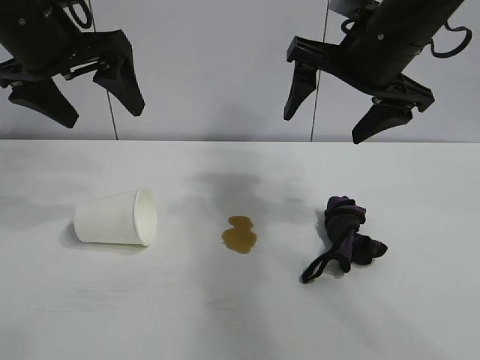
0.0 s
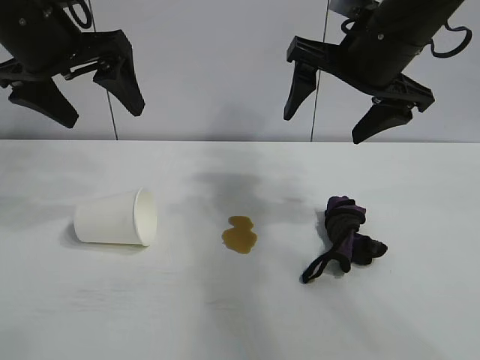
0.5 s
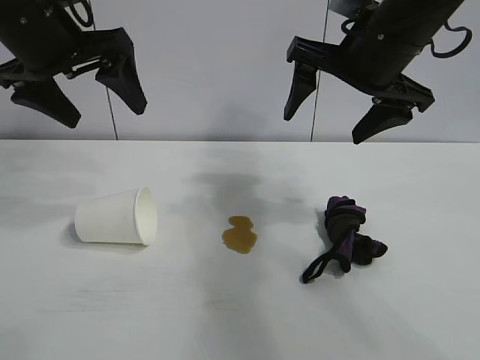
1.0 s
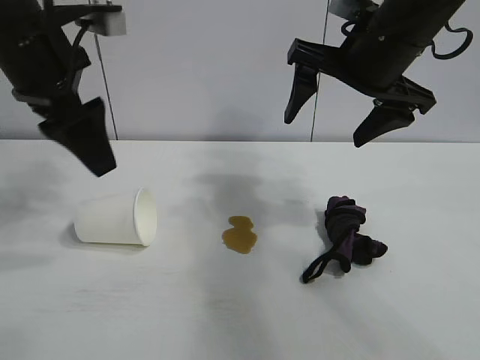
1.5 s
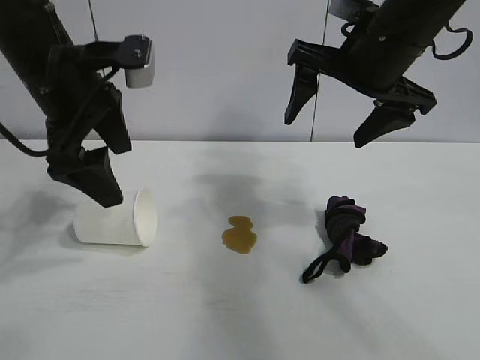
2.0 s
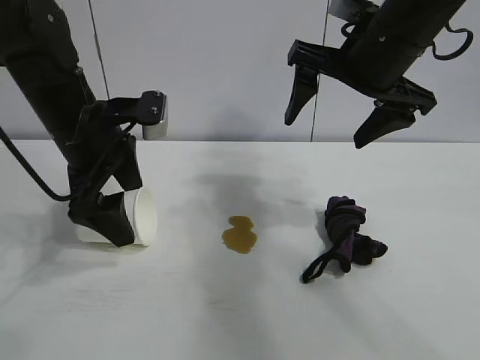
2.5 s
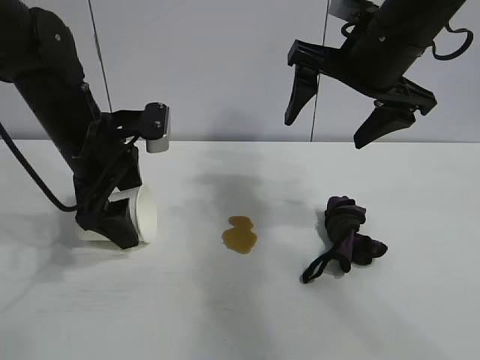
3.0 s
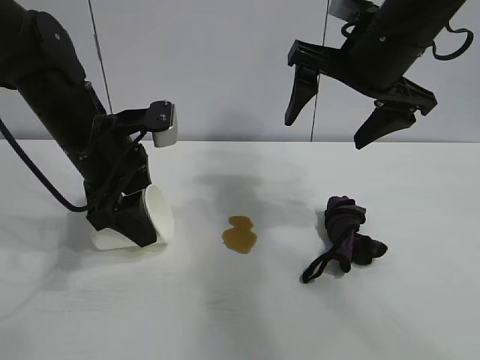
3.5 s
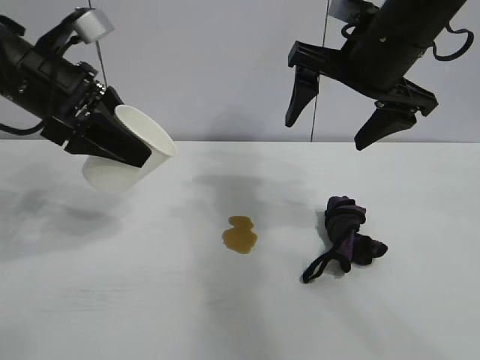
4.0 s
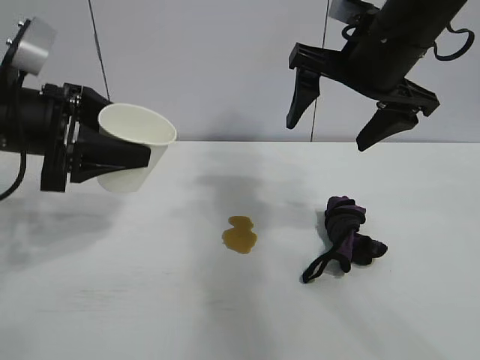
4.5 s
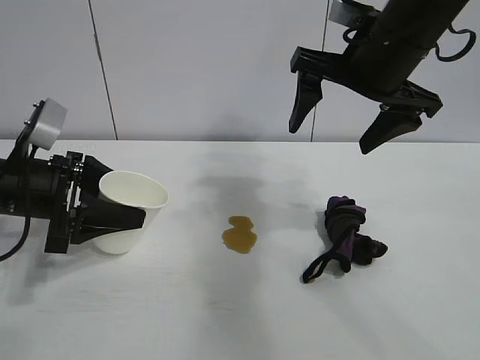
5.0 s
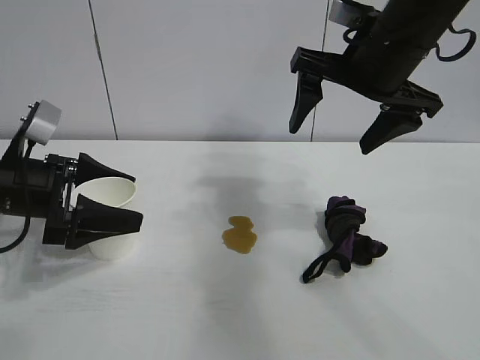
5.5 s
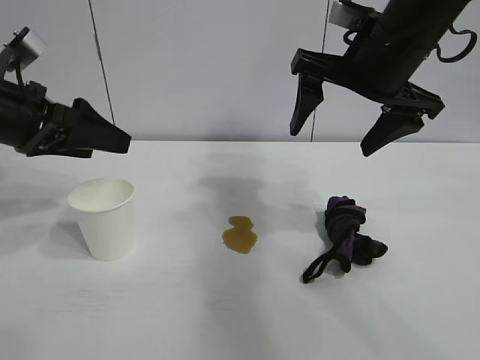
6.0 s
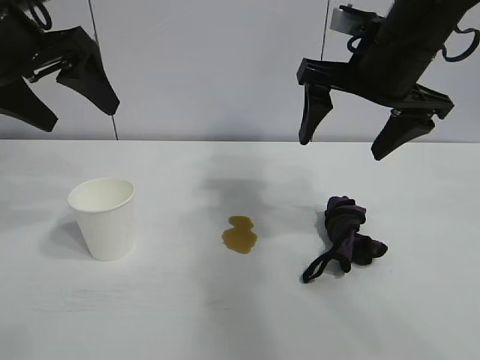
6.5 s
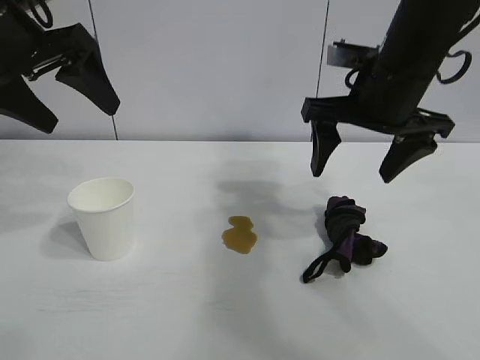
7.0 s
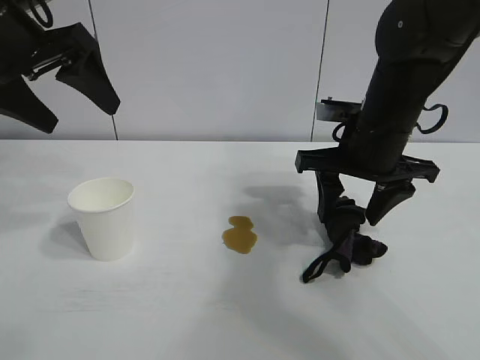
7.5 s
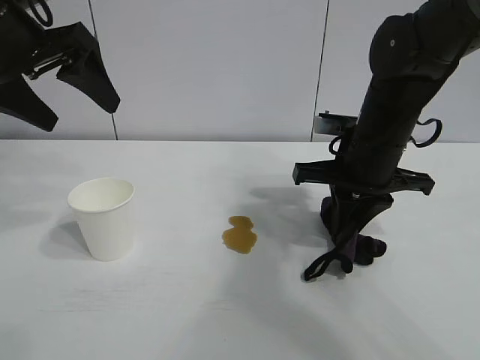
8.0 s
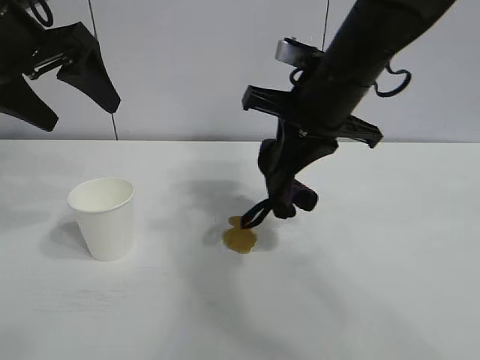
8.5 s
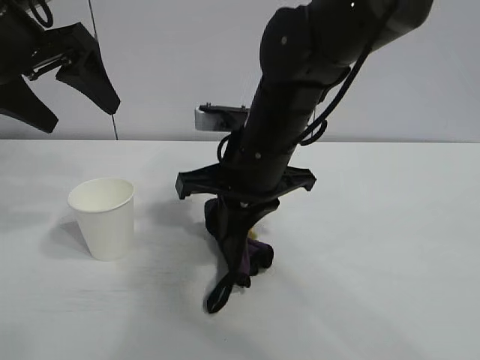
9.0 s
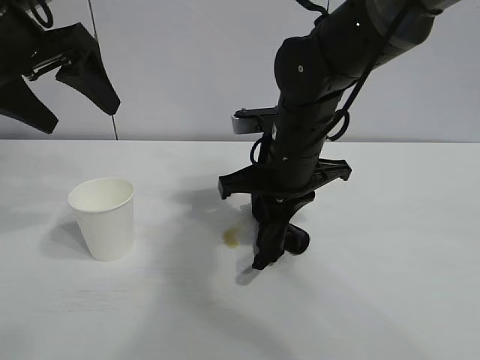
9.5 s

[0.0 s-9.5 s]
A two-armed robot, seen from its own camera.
Task of the whole recording: the left gripper pick up the fallen cup and place it upright, the right gripper grasp the black rag and wipe the stain on the table, the right gripper put the black rag back in its original position.
Step, 1.0 to 3.0 s: Grasp the paper cup with left gripper.
Step, 3.5 to 5.5 s: Stand the paper cup upright with left gripper.
Step, 6.0 to 8.0 s: Grasp the rag with right gripper.
